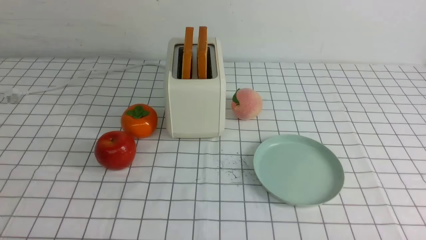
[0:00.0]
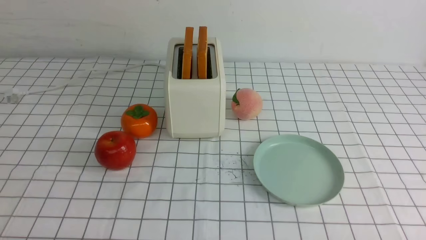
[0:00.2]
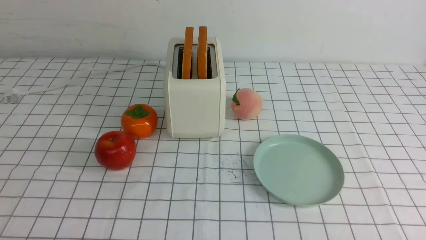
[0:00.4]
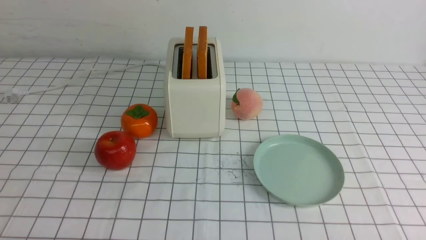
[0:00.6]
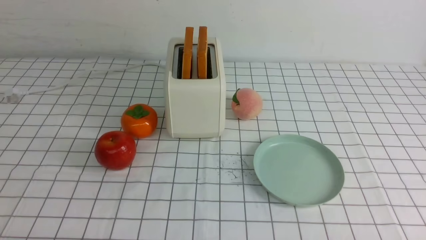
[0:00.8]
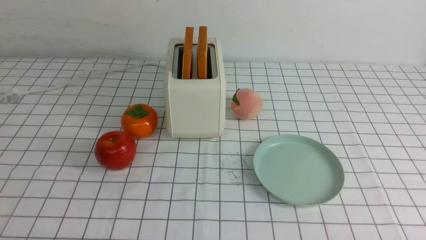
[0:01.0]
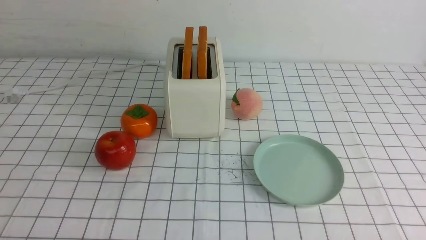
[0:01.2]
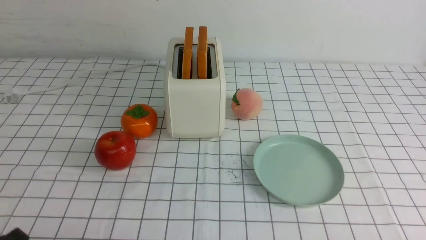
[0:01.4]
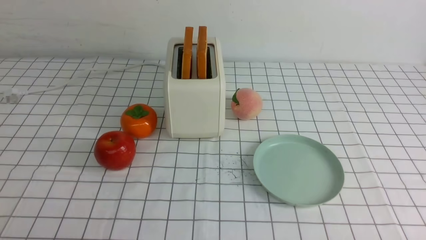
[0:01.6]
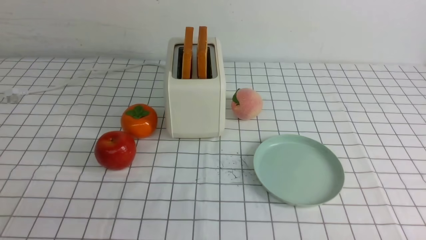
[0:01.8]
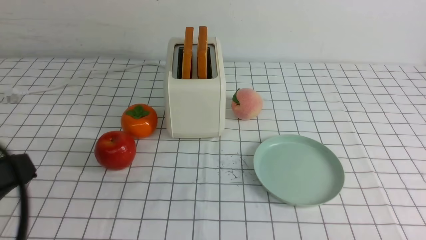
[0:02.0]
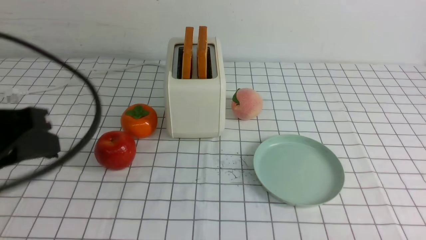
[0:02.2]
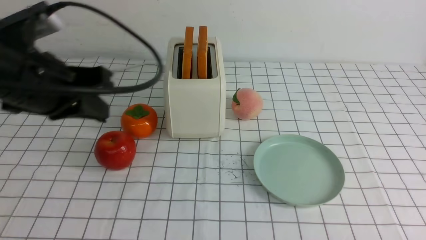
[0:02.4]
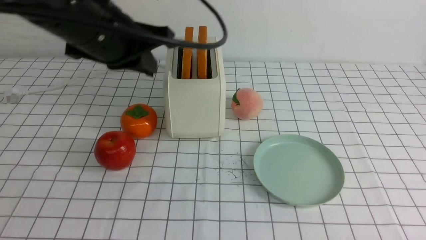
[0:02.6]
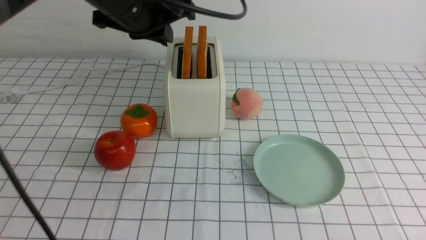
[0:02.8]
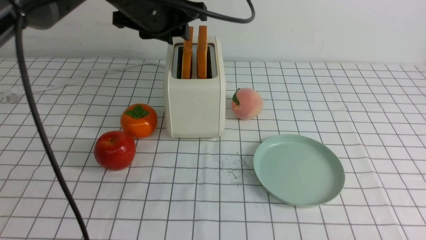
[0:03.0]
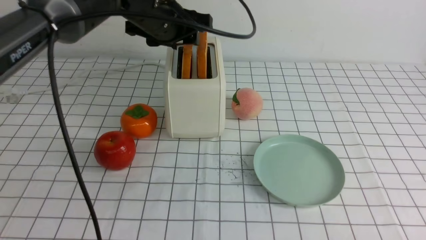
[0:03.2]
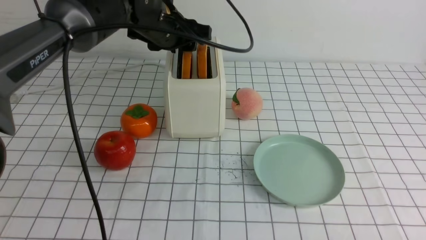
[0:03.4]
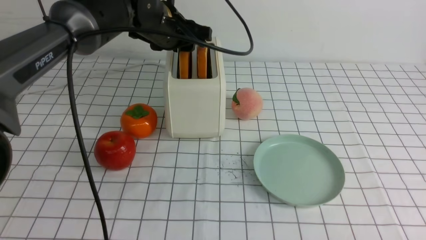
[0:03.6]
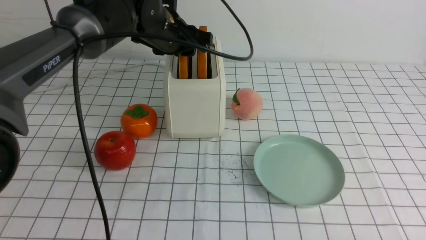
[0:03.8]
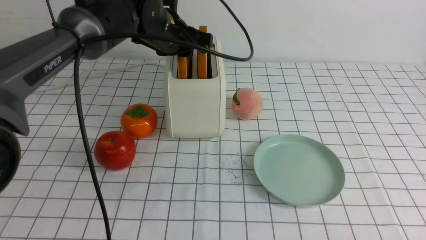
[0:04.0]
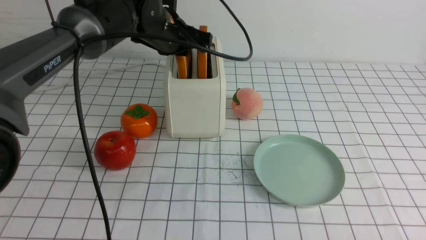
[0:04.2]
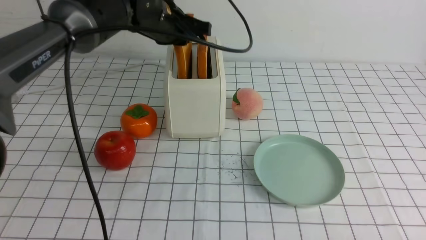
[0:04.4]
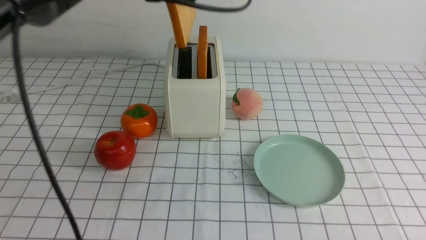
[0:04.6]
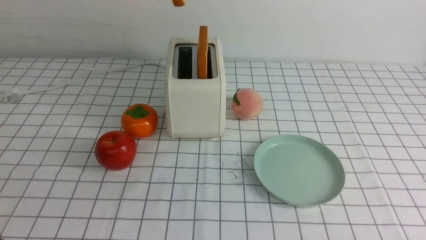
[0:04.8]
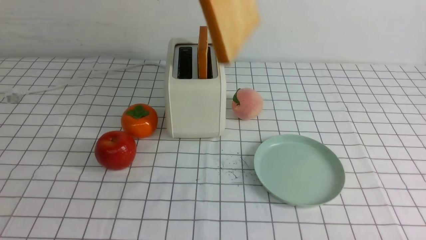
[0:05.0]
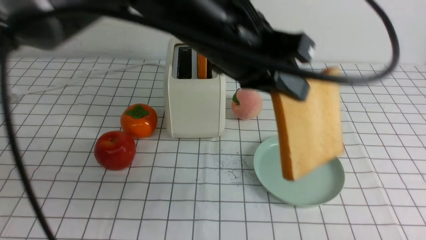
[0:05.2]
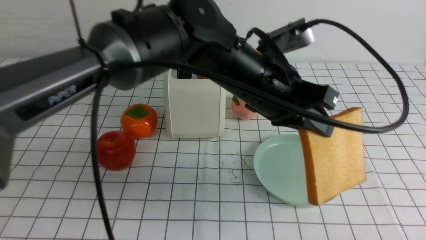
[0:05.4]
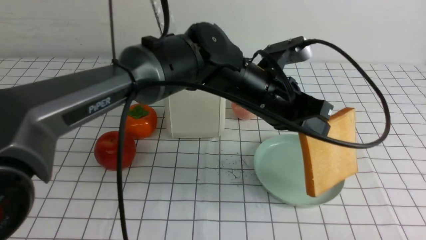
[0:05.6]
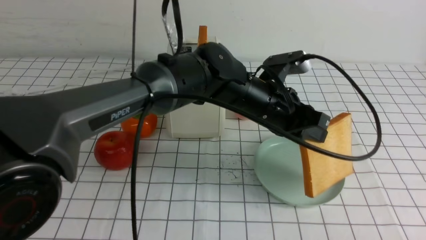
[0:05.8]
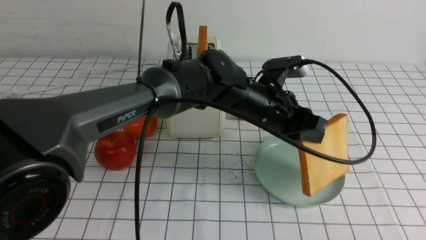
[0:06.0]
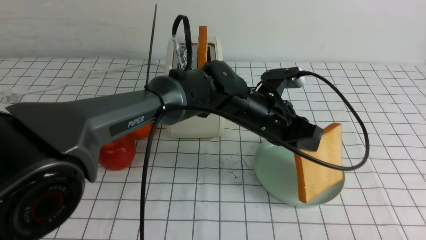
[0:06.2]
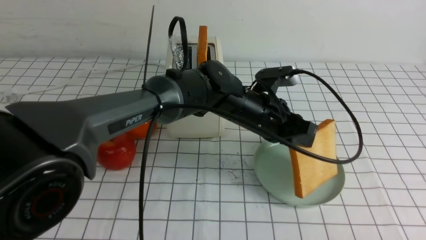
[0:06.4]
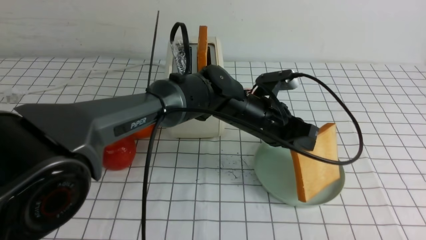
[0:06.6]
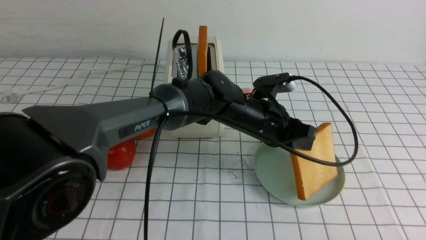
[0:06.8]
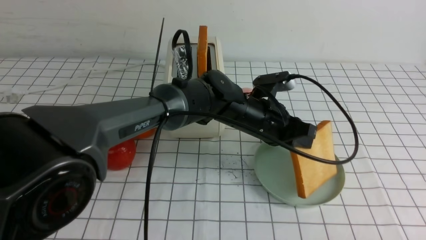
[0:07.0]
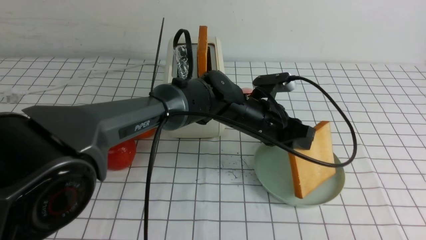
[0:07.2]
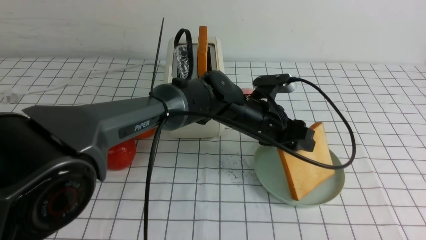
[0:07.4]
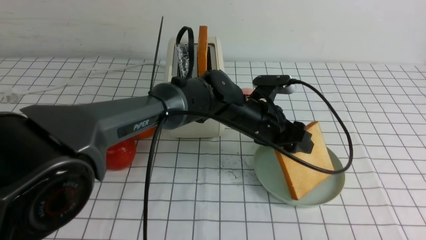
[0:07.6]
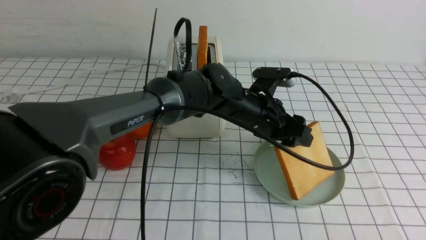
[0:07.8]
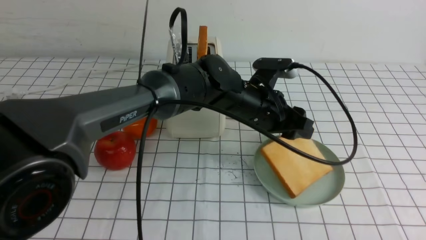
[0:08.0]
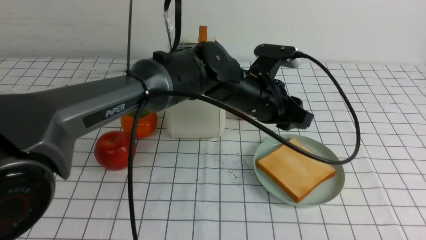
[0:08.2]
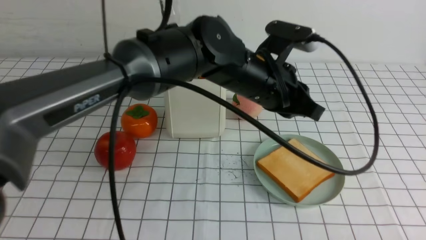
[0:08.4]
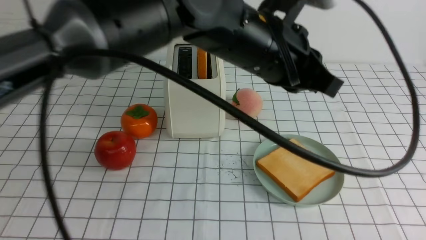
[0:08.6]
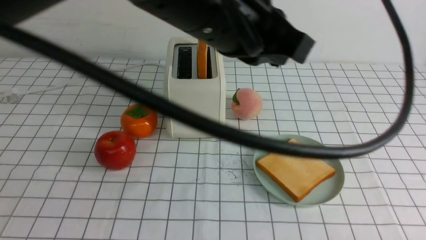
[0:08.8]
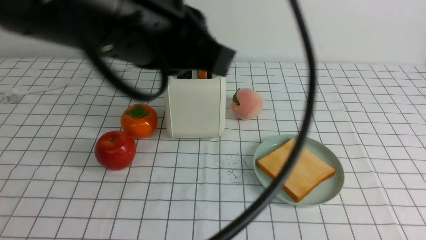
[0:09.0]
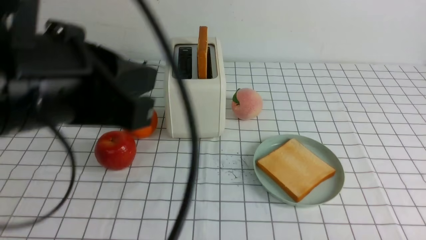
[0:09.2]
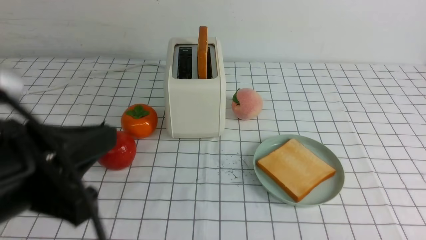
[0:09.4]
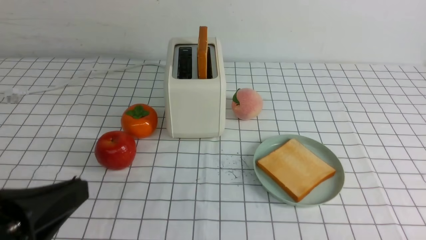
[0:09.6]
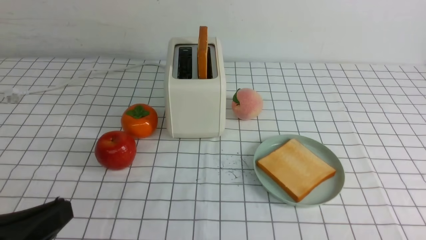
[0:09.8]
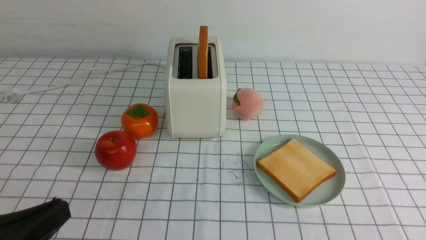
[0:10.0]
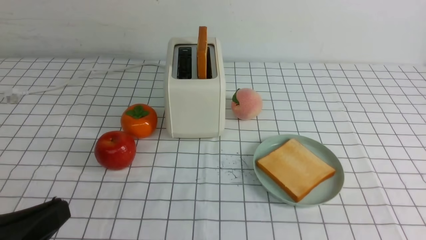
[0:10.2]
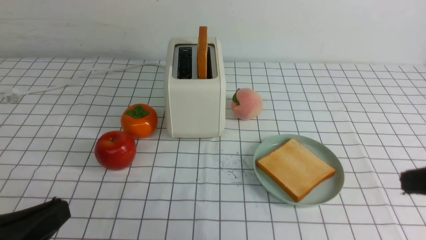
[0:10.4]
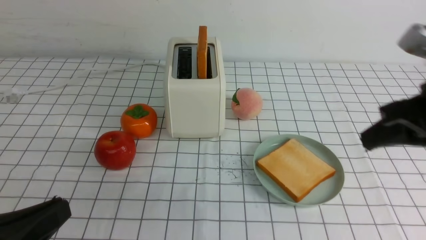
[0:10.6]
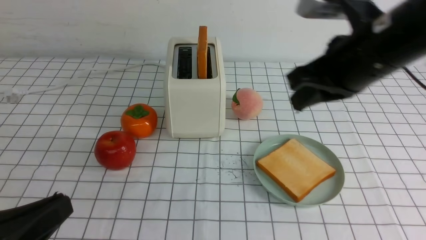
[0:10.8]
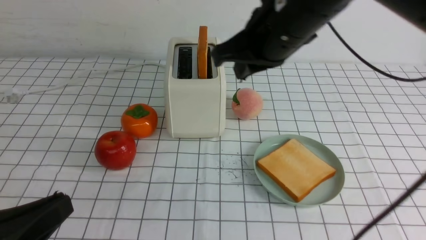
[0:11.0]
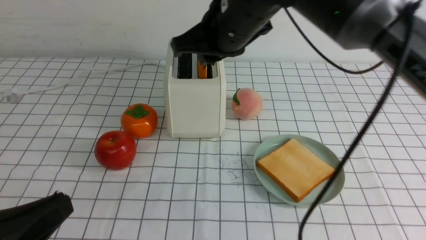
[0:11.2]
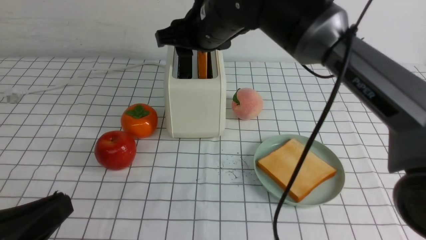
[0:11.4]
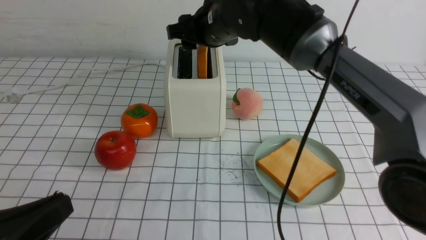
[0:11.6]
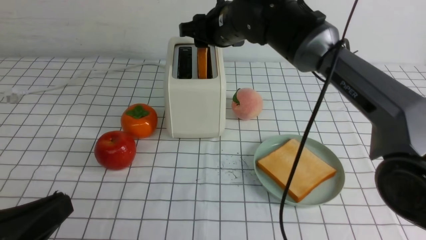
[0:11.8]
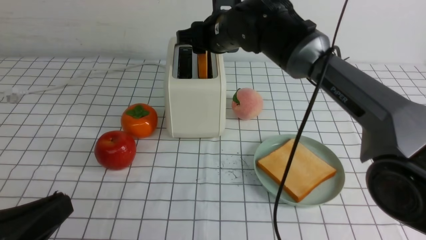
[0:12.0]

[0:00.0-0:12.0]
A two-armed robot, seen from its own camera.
Task of the whole recording: take toasted bread from bread machine on white checkered table place on plate.
Step, 0:00.0 to 0:04.4: use the left arm to take out a slice of bread.
Step, 0:04.6 to 0:08.0: use the left arm to put a slice of bread into the empty plate.
0:01.6 to 0:03.0: The left gripper travels forward, upward and to the right by roughly 40 cm, and closes and opens again.
0:03.0 to 0:04.4: The left gripper shifts roughly 5 cm forward, and opens, then closes again.
0:04.4 to 0:06.0: The left gripper heads to the right, backward and downward, covering roughly 20 cm.
0:06.0 to 0:07.6: The left gripper shifts by approximately 5 cm, and opens.
0:07.6 to 0:09.0: The left gripper is displaced upward, backward and to the left by approximately 30 cm, and closes.
0:09.0 to 0:10.4: The left gripper is displaced downward, to the left and backward by roughly 25 cm; the right gripper moves upward and forward, approximately 15 cm, and closes up.
0:10.4 to 0:12.0: The right gripper travels forward and to the left by roughly 40 cm, and opens.

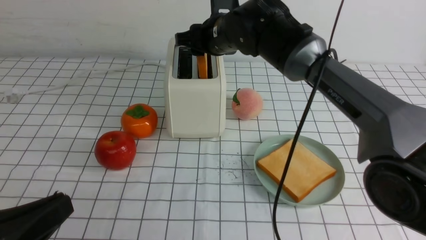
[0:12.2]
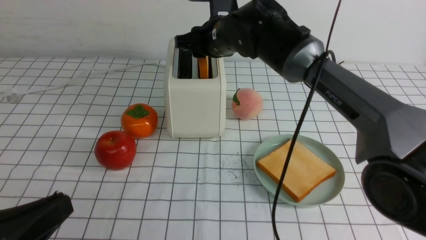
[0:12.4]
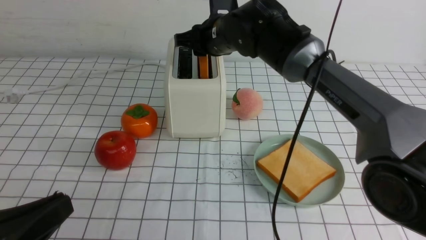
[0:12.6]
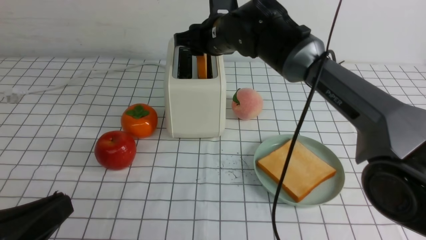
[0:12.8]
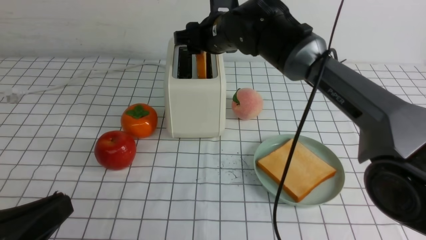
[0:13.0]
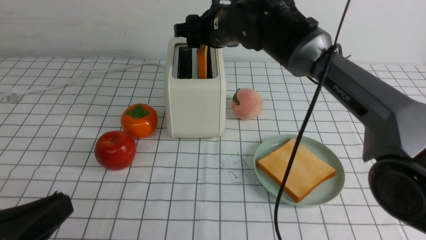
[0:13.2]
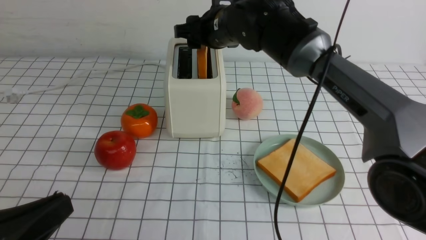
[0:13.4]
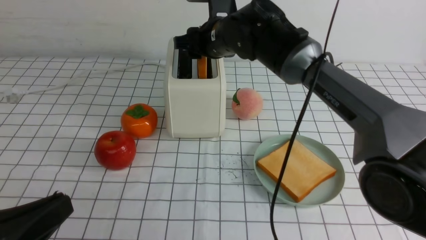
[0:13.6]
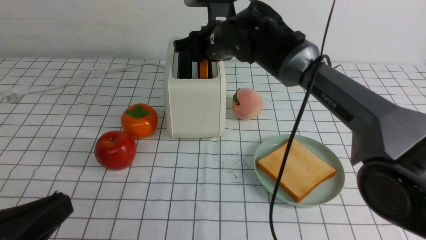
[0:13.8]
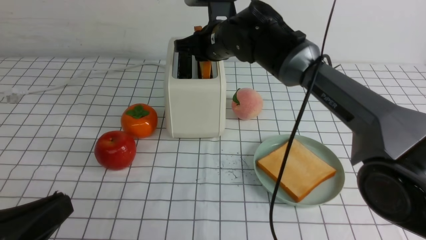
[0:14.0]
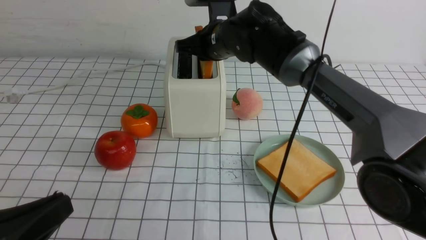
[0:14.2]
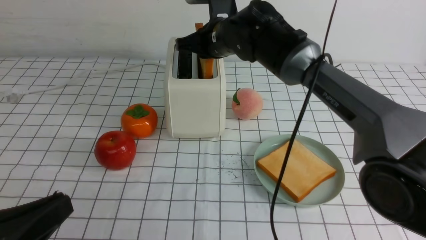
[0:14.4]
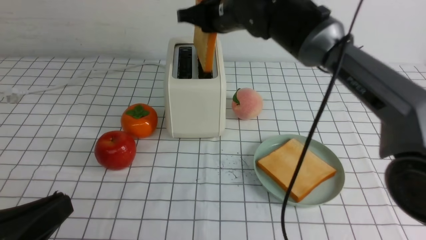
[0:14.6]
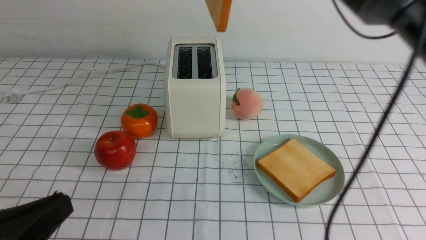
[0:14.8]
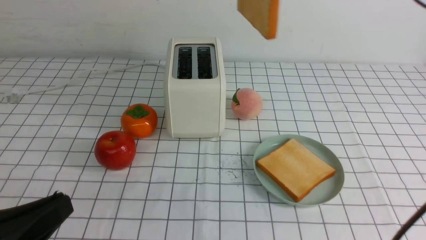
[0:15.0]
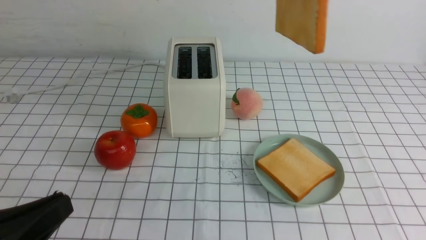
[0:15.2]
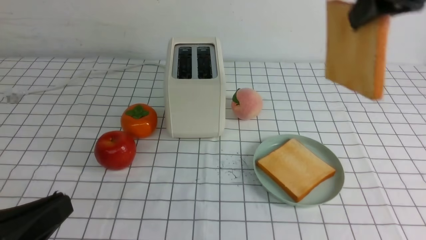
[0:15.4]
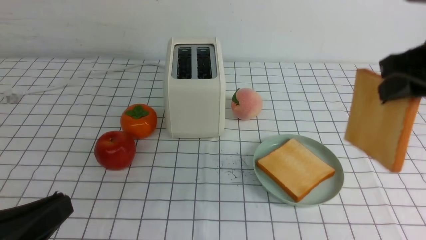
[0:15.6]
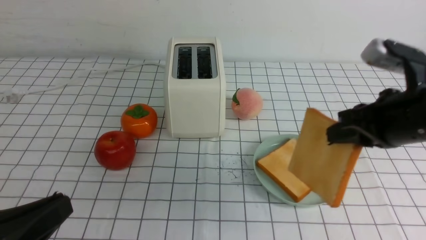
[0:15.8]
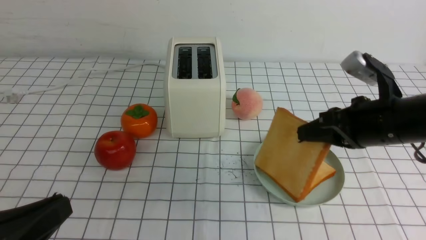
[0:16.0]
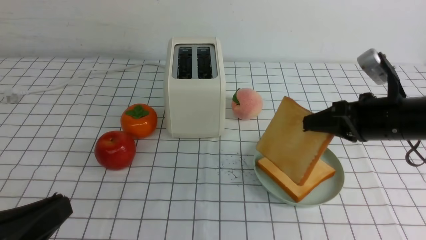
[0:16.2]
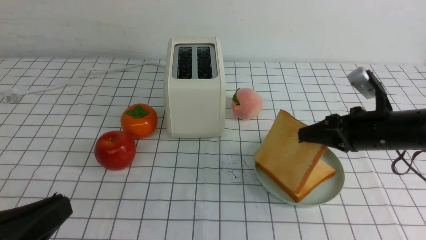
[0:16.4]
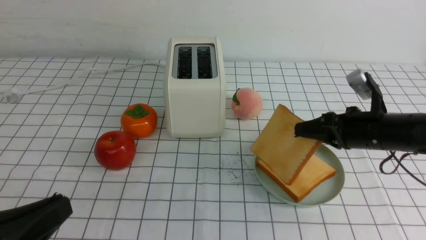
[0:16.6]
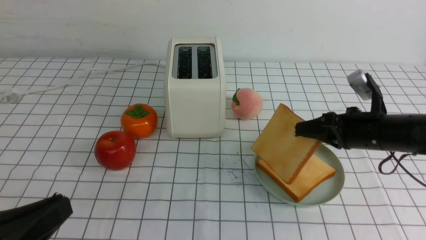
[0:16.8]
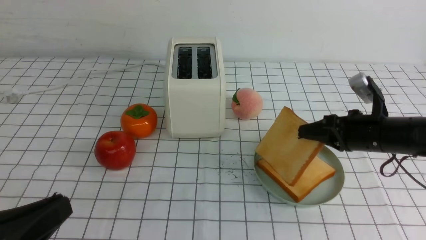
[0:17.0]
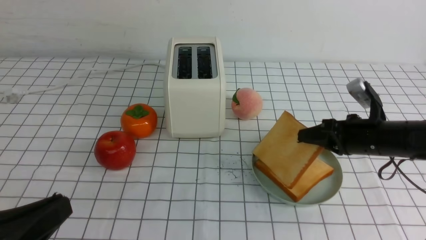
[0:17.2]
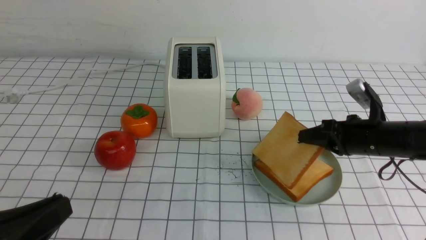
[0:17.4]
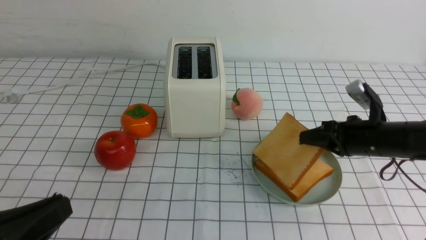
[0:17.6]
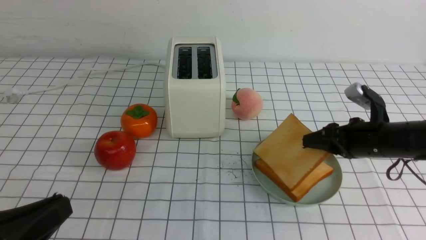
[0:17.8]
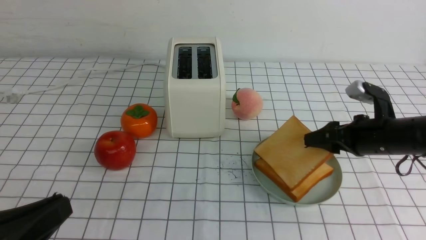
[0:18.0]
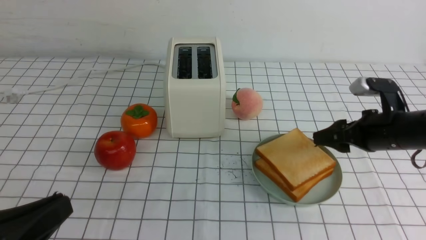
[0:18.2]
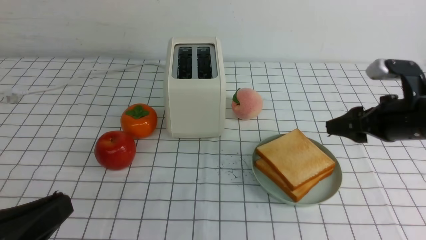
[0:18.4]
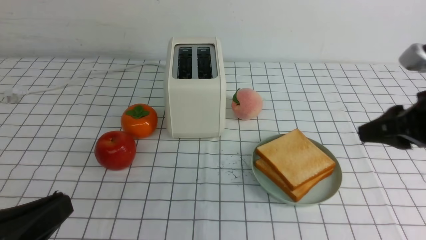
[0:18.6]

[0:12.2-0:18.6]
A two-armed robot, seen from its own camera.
Task of the whole recording: take toasted bread from bread machine on white checkered table place on plate.
Step, 0:12.2 to 0:14.6: use the right arm to take out a slice of bread.
Step, 0:14.8 to 0:18.2: use the right arm to put a slice of bread into the plate.
0:12.2 to 0:13.8: Both grippers stay put.
0:13.8 to 0:15.4: The right gripper heads to the right, upward and backward, covering some 30 cm, and closes.
0:15.4 to 0:17.0: The right gripper moves downward, about 30 cm.
0:17.0 to 0:18.6: The right gripper shifts approximately 15 cm upward and backward, and opens up.
